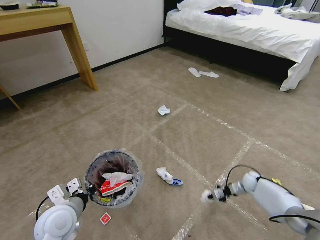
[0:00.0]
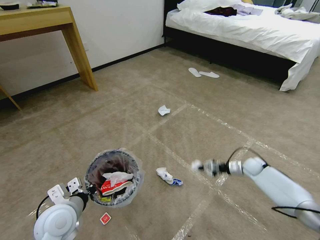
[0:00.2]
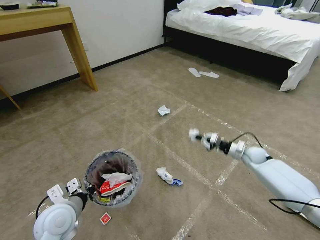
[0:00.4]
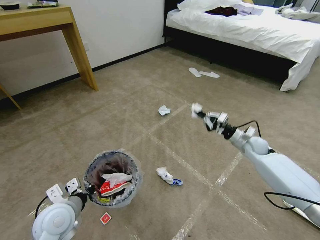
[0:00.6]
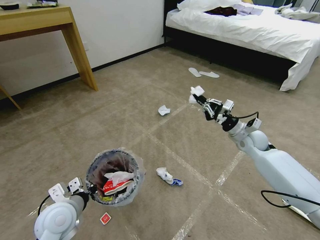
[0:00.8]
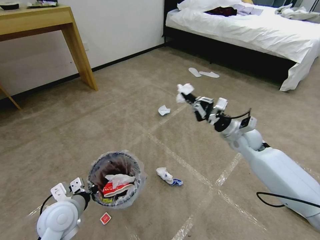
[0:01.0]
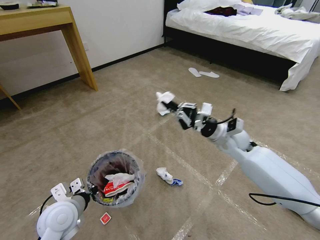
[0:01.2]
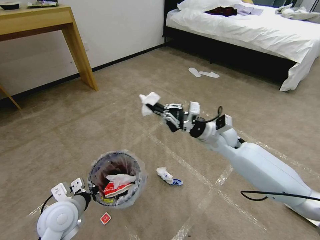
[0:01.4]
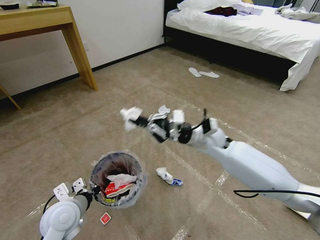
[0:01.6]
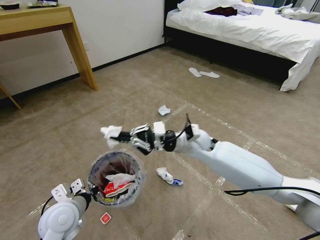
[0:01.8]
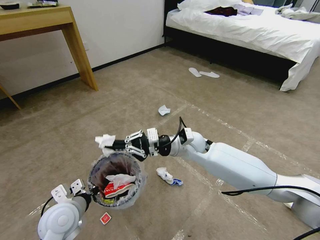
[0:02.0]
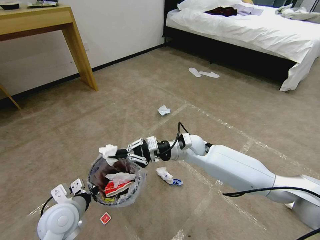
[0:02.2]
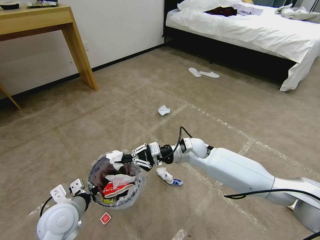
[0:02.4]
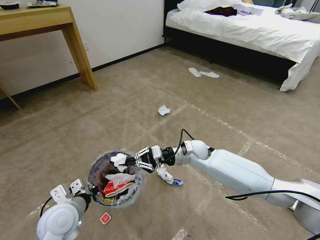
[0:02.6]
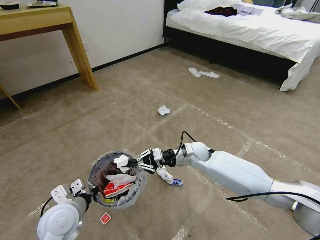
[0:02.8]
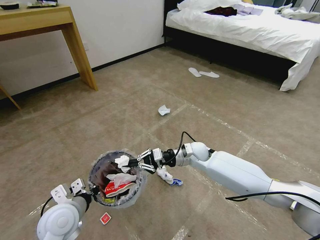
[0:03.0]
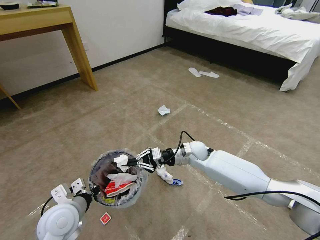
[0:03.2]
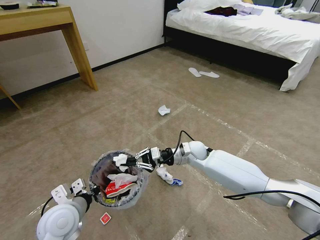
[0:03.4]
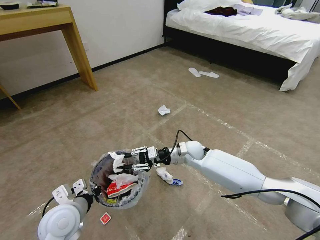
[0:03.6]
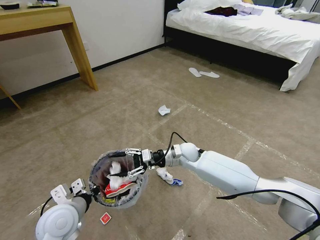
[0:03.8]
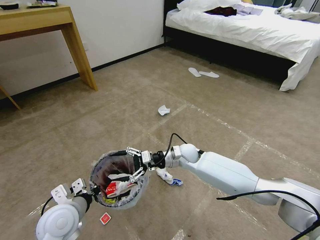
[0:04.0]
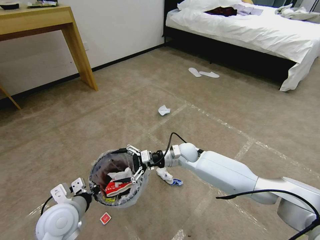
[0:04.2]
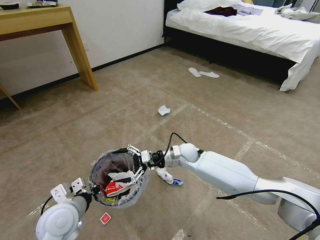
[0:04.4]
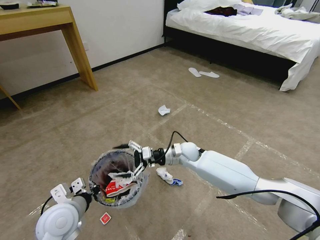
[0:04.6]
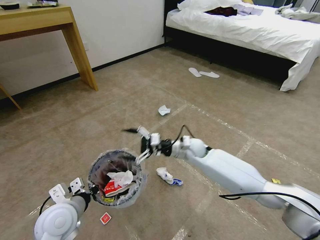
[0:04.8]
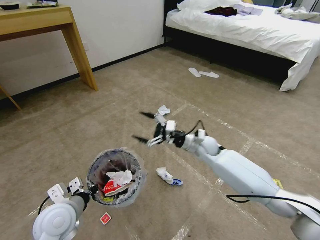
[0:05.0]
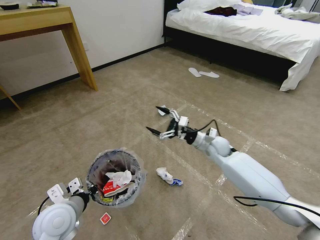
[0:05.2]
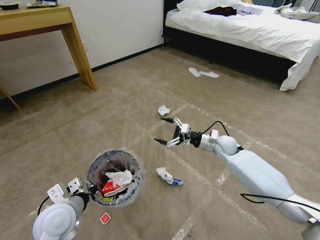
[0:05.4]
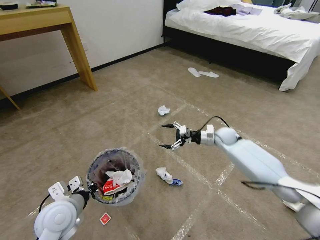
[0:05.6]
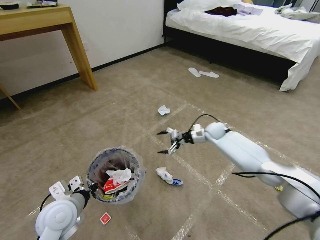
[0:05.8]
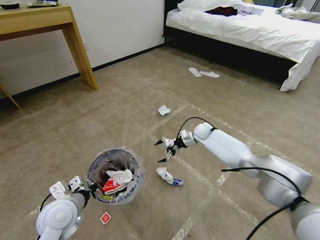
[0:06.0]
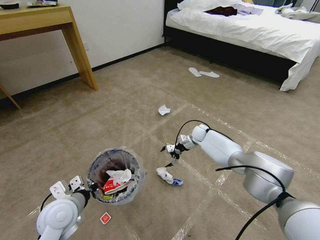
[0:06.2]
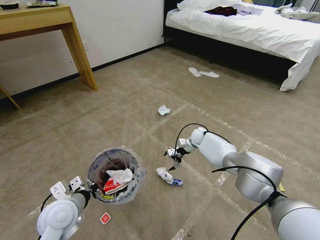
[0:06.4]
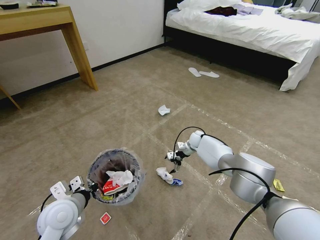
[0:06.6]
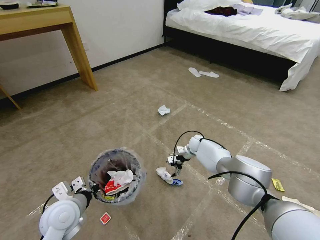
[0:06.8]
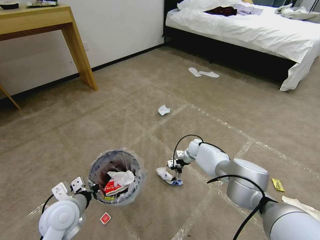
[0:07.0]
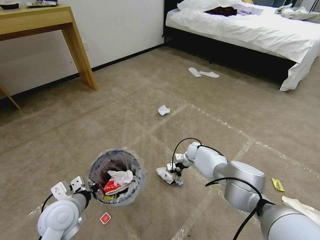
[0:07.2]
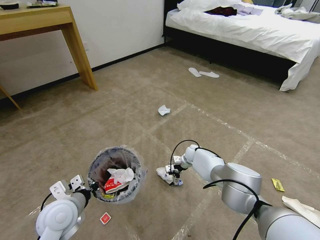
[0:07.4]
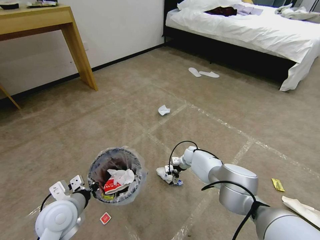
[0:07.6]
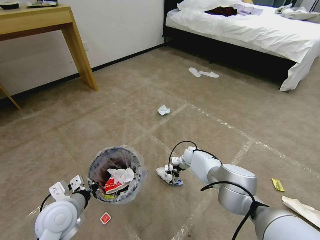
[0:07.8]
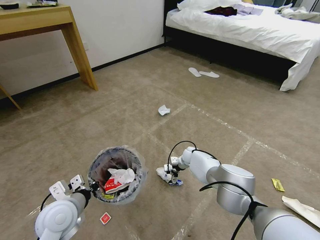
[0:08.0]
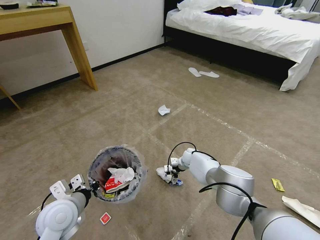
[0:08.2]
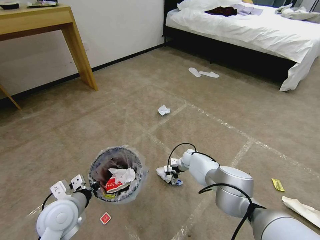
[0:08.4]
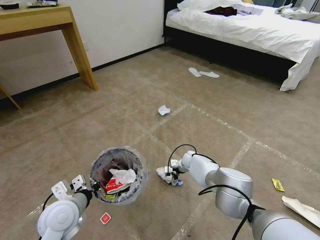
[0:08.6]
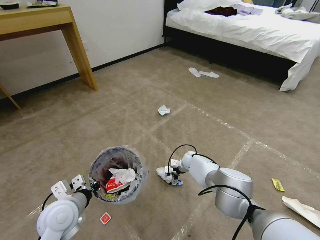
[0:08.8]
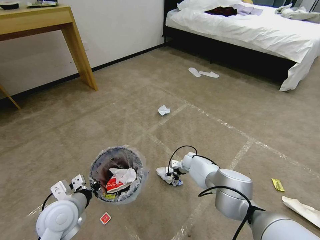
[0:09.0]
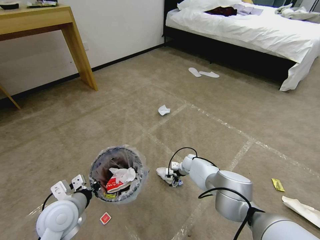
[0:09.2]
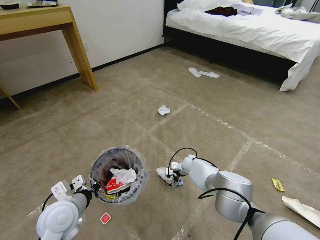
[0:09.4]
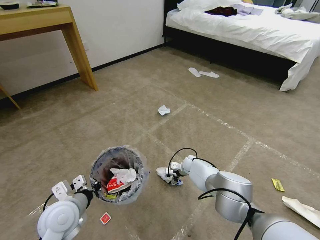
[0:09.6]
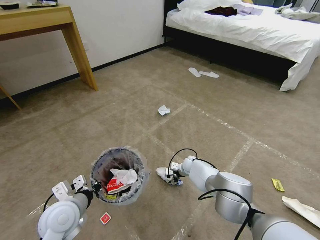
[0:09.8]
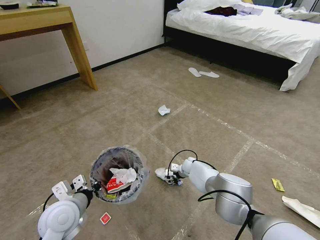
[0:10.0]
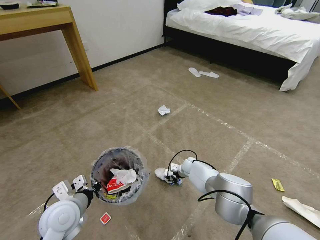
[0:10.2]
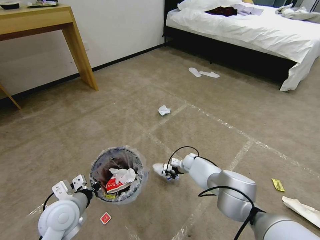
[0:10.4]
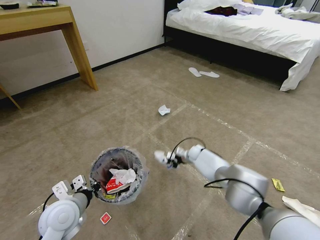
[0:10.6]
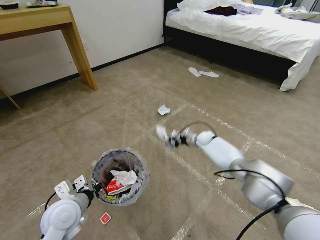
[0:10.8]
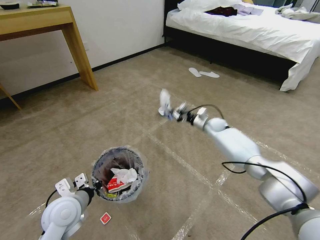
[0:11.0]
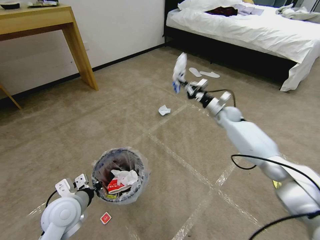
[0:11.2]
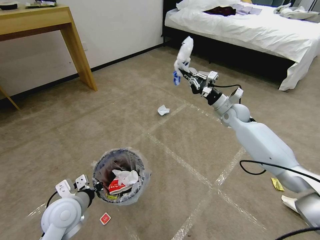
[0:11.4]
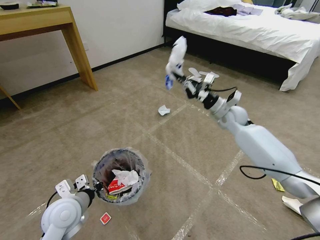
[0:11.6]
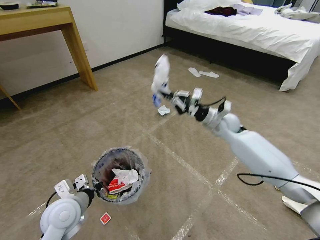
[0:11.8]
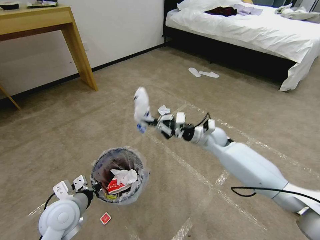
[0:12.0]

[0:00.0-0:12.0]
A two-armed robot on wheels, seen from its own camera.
Task of the whole recording: Pick up the trash bin and place the garbage on the floor into it.
0:00.0 to 0:01.6: The right gripper heads upward and to the left, covering some 40 cm.
0:01.6 to 0:03.0: The right gripper shifts roughly 10 cm downward.
0:03.0 to 0:04.4: The right gripper opens up.
0:04.4 to 0:06.0: The right gripper is displaced forward and to the right by about 20 cm.
0:06.0 to 0:07.6: The right gripper moves downward, about 15 cm.
0:07.6 to 0:09.0: The grippers make only small movements.
0:09.0 to 0:10.4: The right gripper closes up.
0:10.4 to 0:12.0: The right gripper travels upward by about 25 cm.

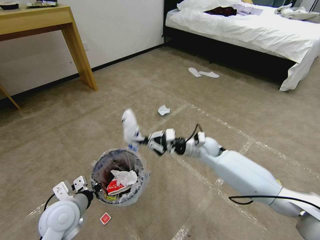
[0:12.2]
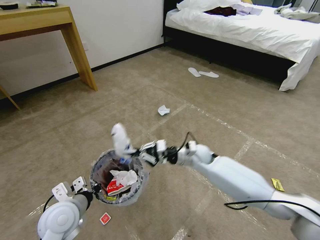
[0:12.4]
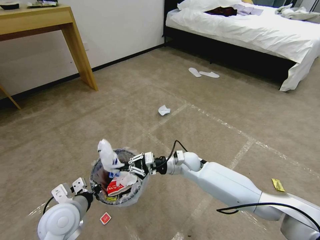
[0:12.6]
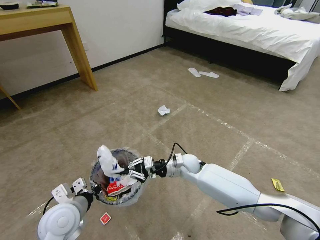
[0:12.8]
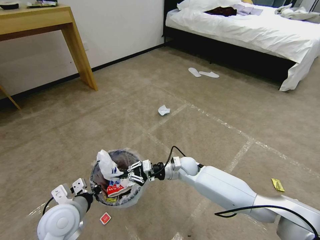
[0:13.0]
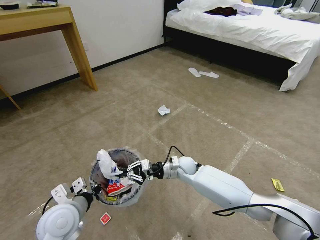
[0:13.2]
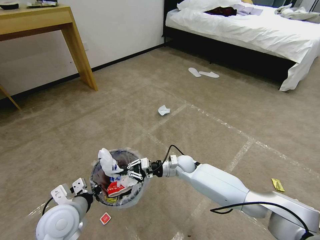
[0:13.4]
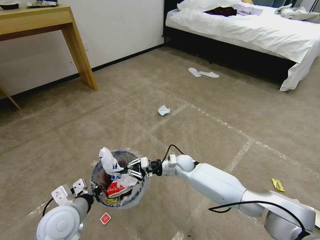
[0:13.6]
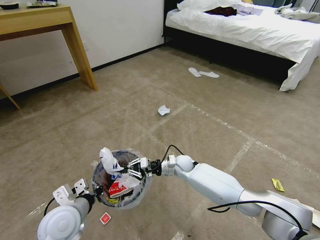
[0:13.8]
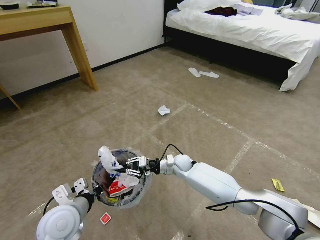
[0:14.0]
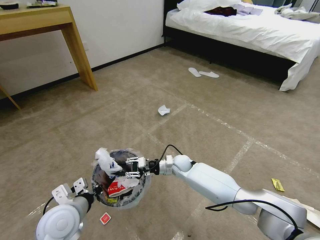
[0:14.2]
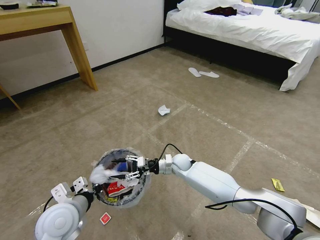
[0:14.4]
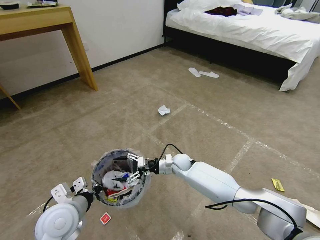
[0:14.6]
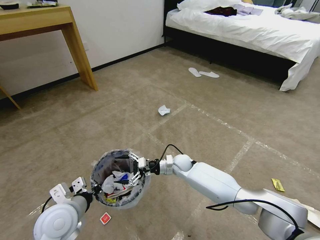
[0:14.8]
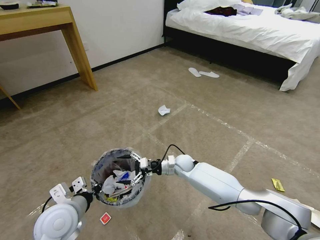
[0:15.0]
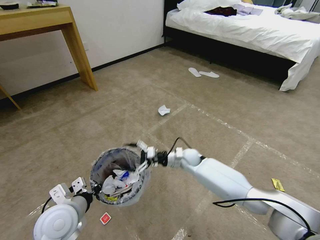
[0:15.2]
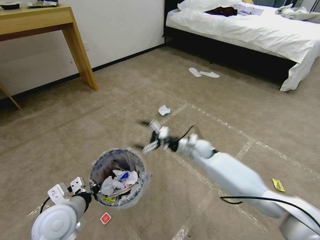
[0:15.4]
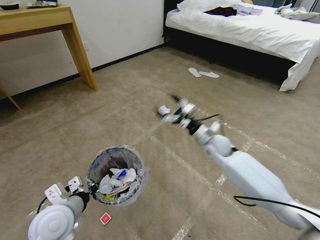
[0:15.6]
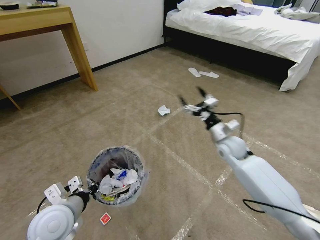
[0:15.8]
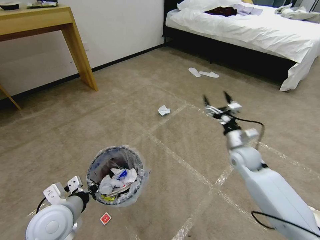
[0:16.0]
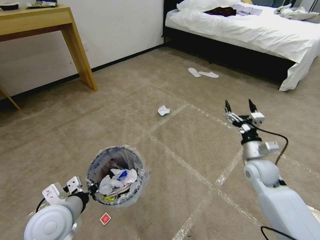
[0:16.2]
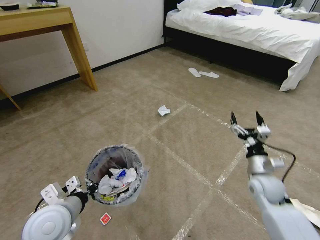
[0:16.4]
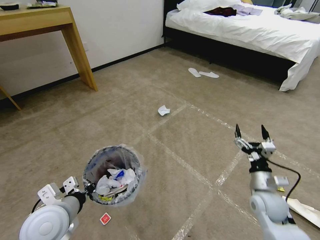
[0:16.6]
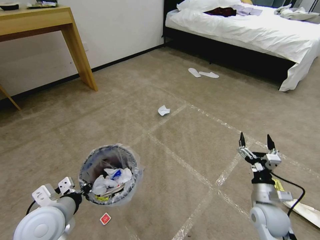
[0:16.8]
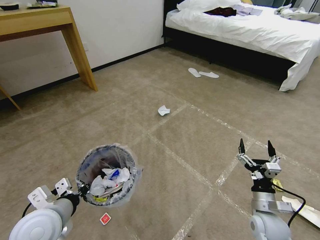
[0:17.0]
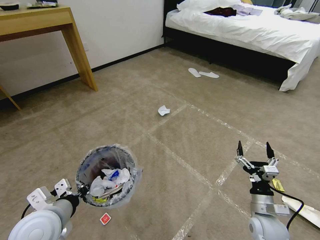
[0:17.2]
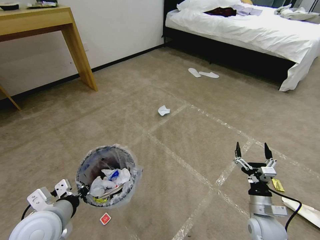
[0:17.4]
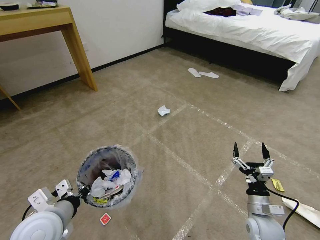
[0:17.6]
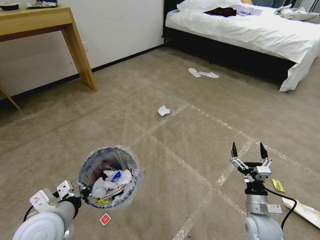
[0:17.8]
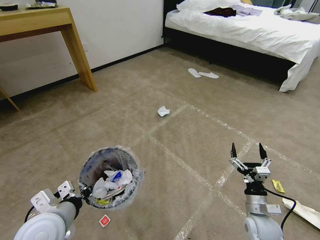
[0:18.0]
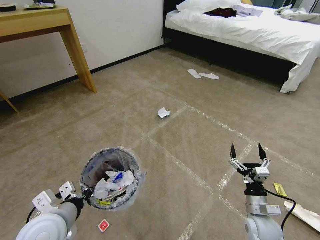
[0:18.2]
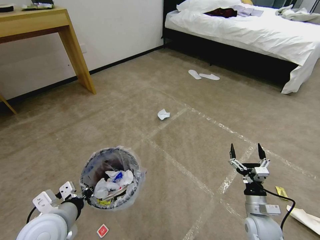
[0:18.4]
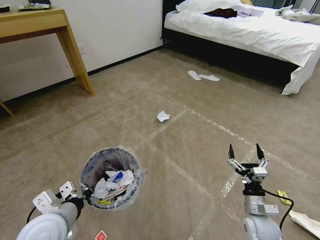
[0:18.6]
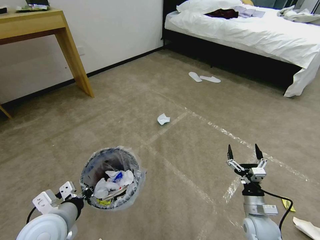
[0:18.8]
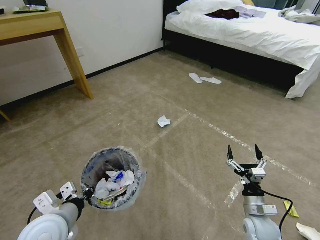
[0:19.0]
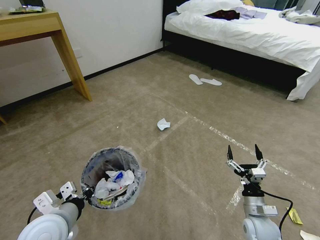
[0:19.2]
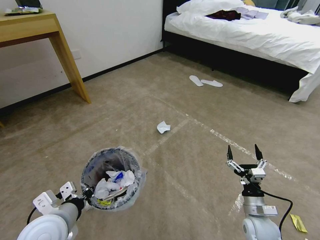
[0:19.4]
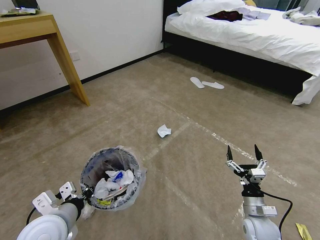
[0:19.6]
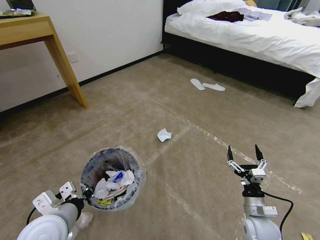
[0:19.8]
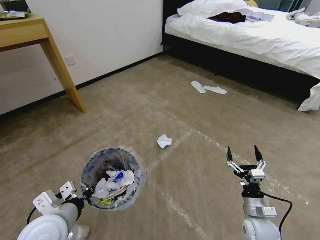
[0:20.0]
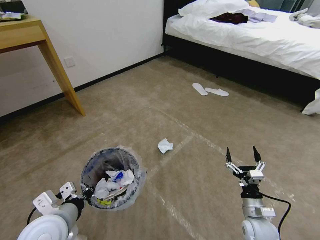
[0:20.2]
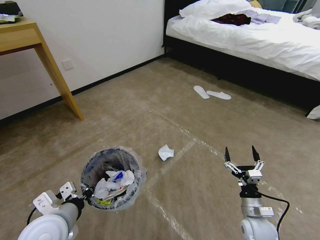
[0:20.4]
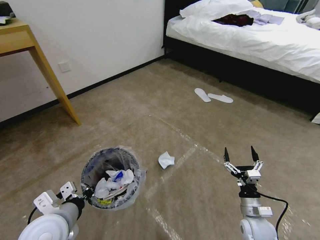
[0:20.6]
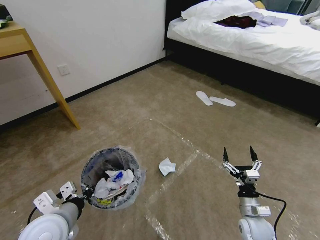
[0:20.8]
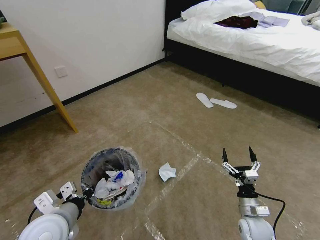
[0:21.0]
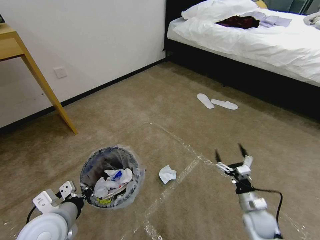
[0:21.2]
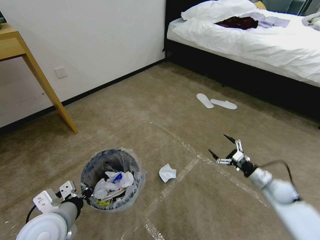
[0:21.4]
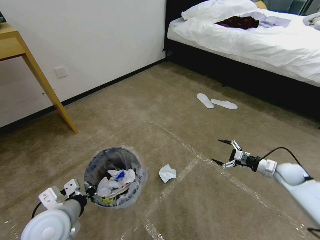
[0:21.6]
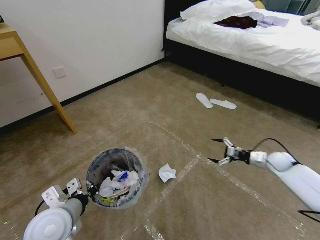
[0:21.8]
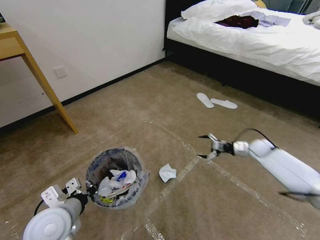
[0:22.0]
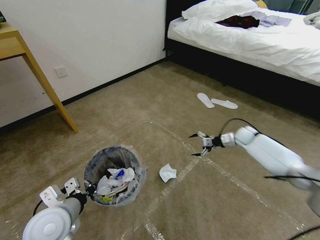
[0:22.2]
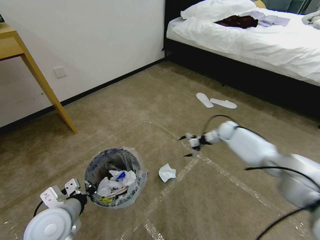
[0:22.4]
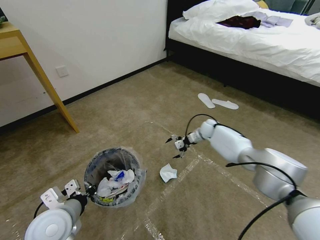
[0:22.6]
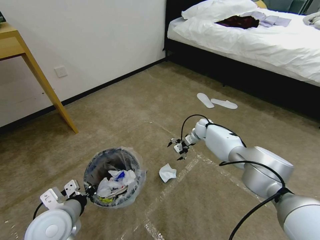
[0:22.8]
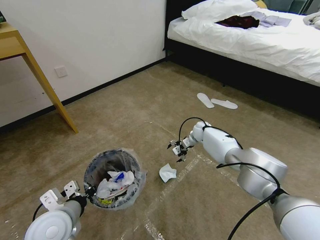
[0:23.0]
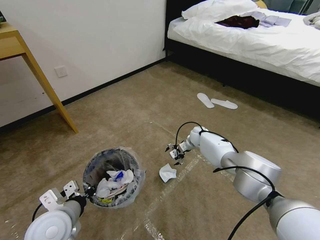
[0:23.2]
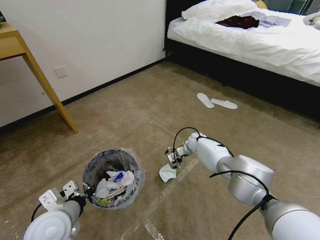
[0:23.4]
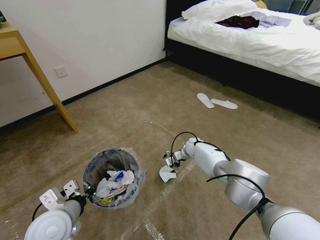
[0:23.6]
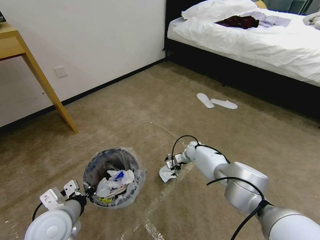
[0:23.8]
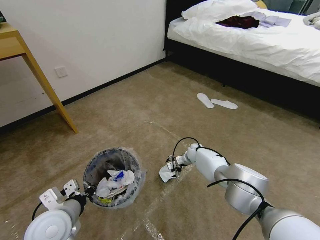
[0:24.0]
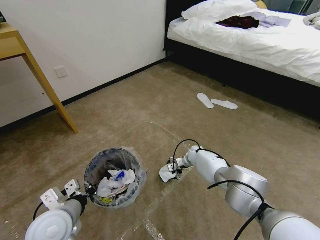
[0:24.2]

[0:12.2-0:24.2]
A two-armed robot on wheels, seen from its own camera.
Task of the whole recording: Pick up the trash bin and place the garbage on the floor into it.
0:12.2 to 0:13.8: The right gripper travels downward and to the left by some 15 cm.
0:13.8 to 0:15.2: The right gripper opens.
0:15.2 to 0:16.6: The right gripper heads to the right and backward, covering about 30 cm.
0:16.6 to 0:18.2: The right gripper goes about 5 cm downward.
0:21.2 to 0:22.6: The right gripper moves forward, about 40 cm.
0:22.6 to 0:24.2: The right gripper travels downward and backward by some 15 cm.
